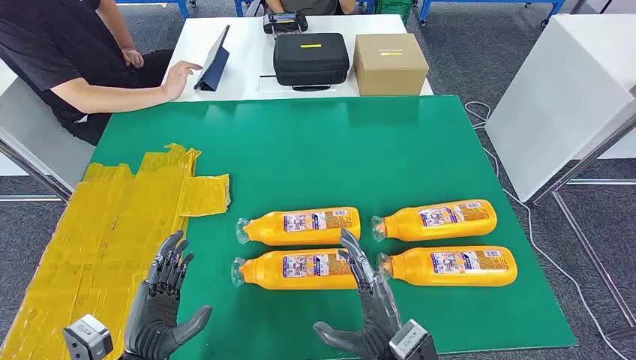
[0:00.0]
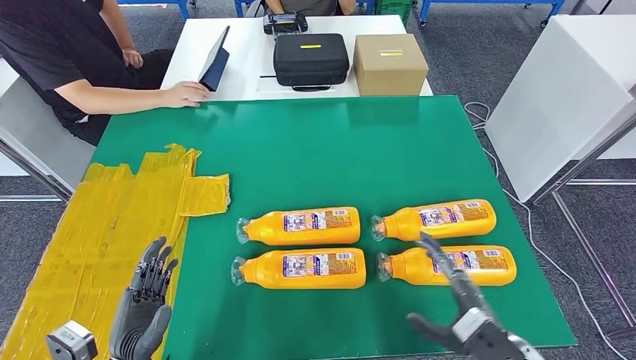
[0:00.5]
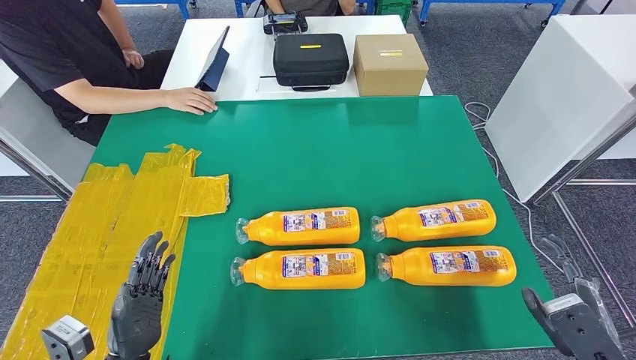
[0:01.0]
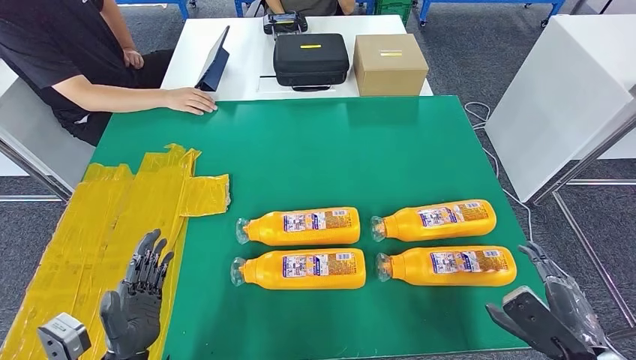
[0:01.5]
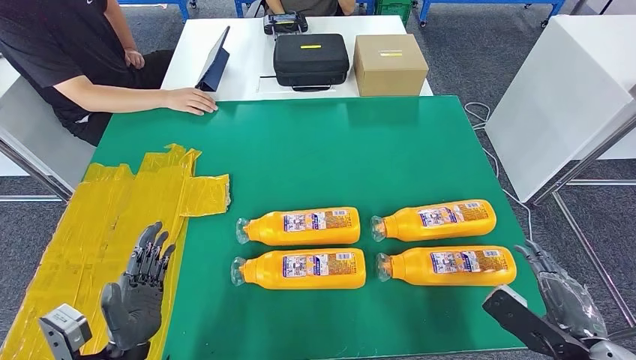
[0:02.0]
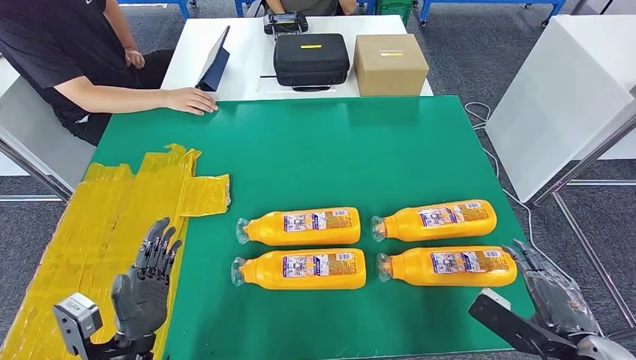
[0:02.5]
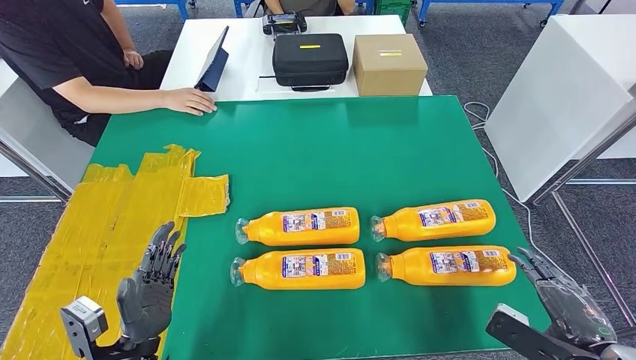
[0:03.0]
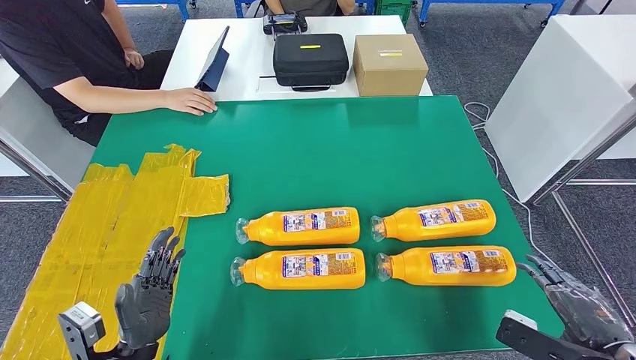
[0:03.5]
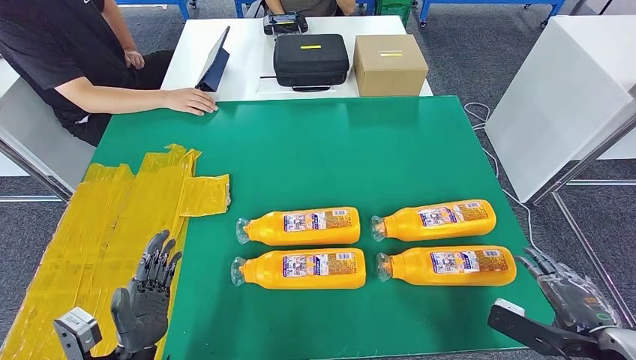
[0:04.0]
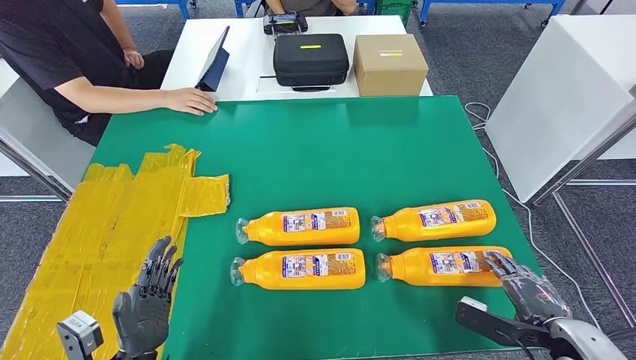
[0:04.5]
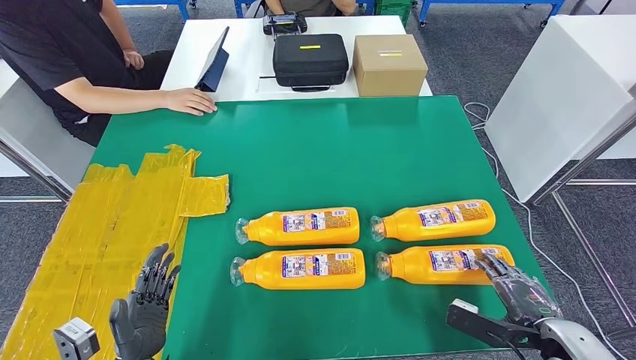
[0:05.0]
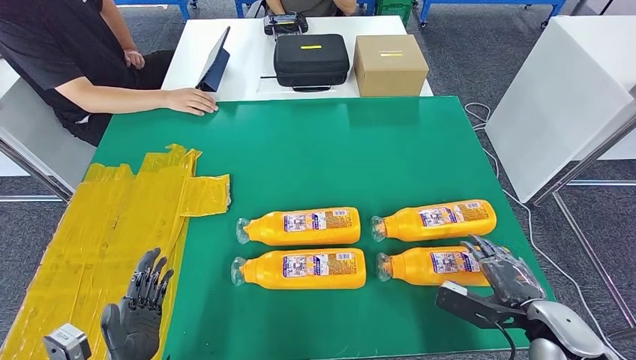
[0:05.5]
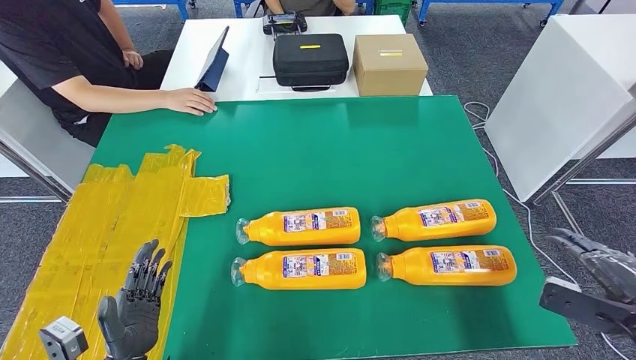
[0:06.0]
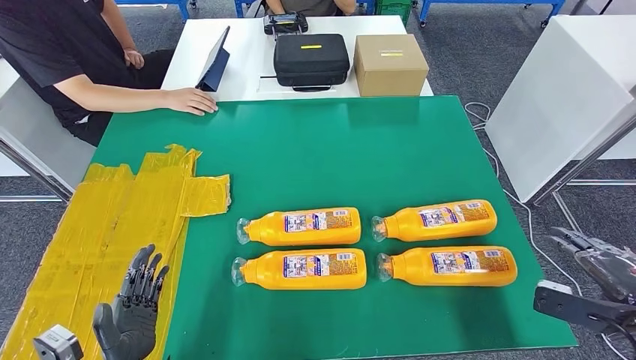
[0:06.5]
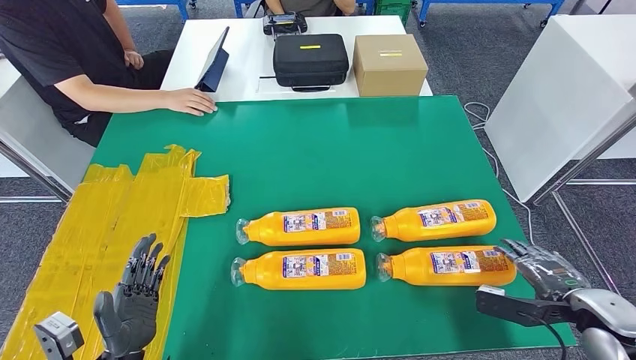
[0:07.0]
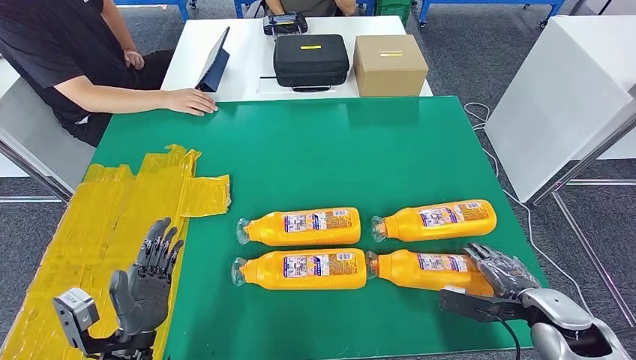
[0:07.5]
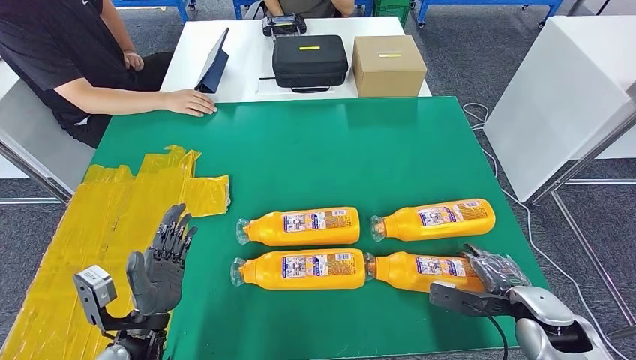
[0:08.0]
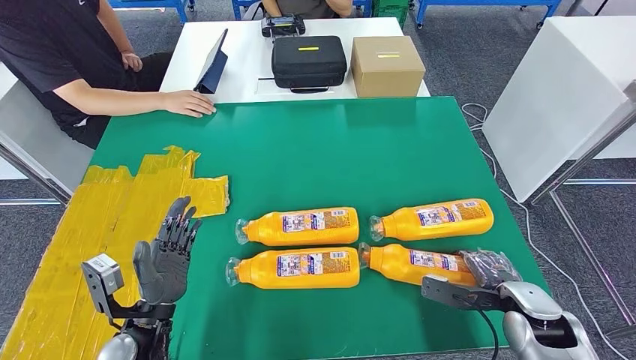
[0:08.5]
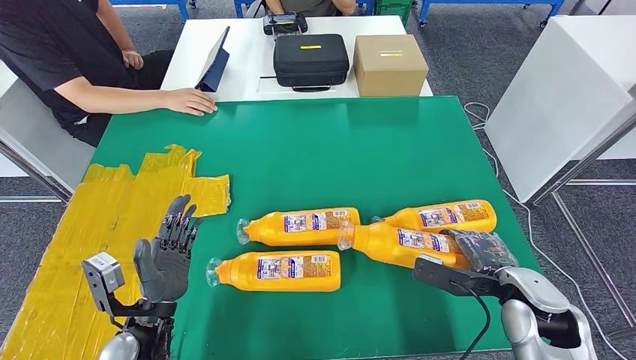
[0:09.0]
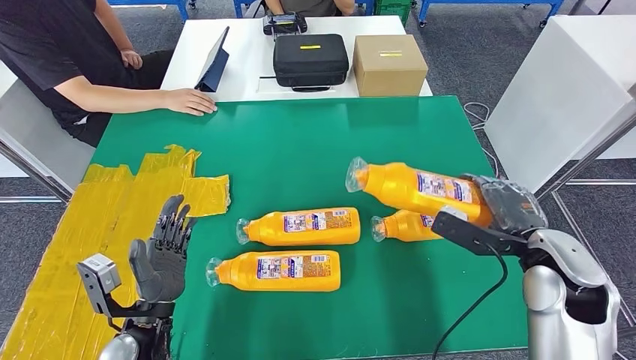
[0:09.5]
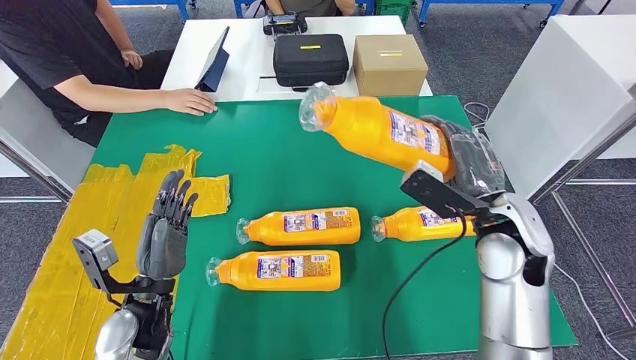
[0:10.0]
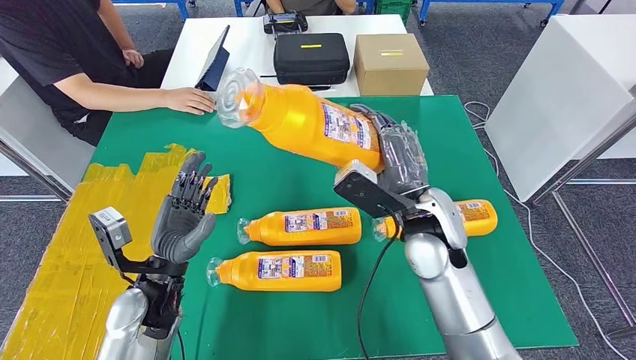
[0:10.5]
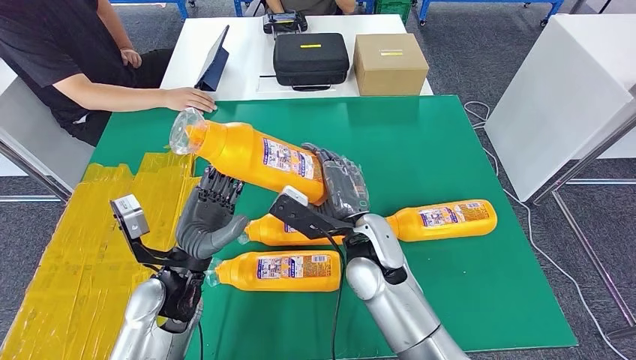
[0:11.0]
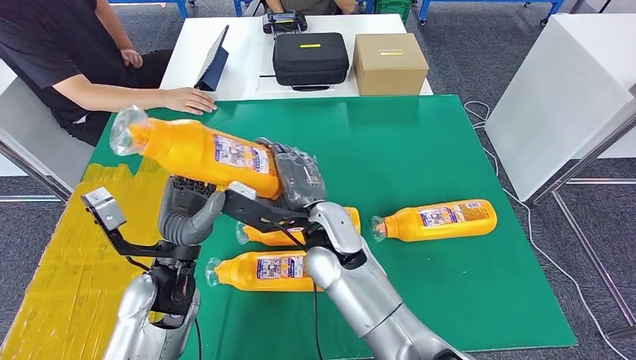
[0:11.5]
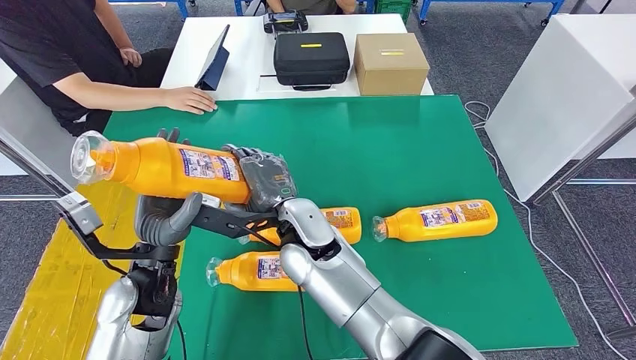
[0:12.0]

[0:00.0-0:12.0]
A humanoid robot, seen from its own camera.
Step, 0:00.0 to 0:11.5: Take the bottle from the table.
0:04.0 to 0:06.0: The right hand goes some 5 cm to the right.
0:06.0 to 0:08.0: The left hand goes approximately 5 cm forward; the right hand shifts about 20 cm downward, to the left and forward.

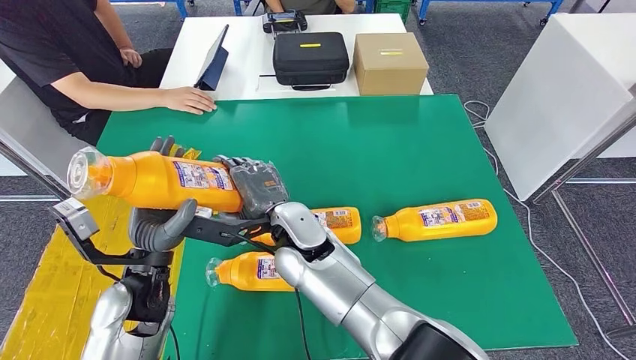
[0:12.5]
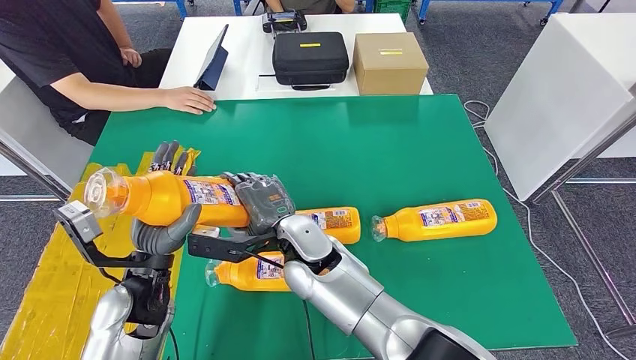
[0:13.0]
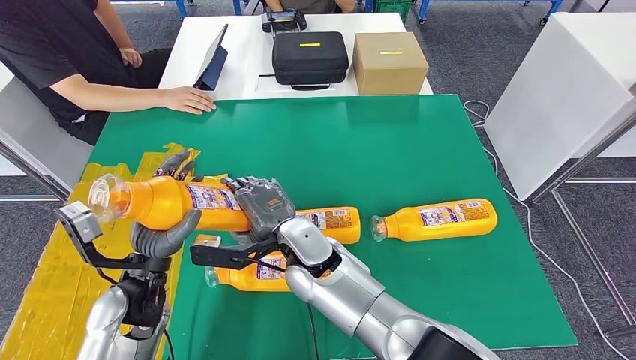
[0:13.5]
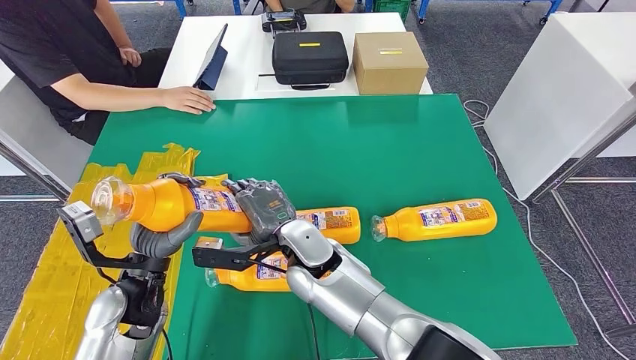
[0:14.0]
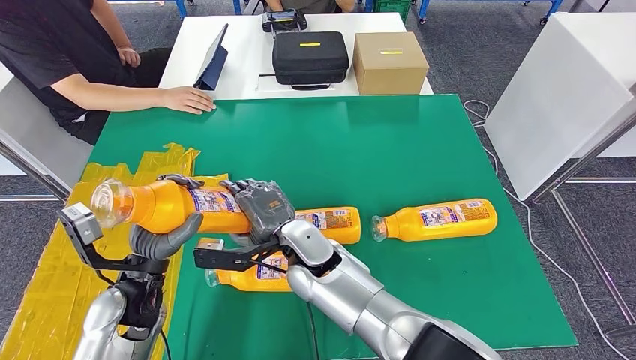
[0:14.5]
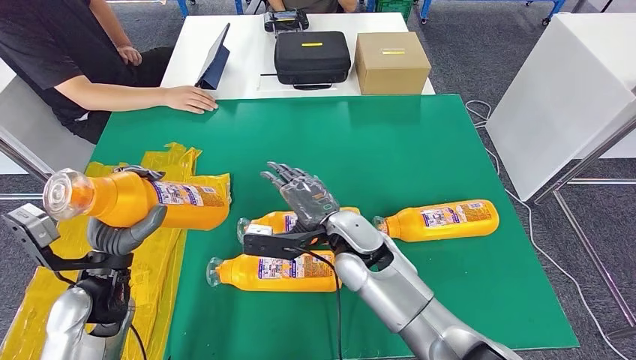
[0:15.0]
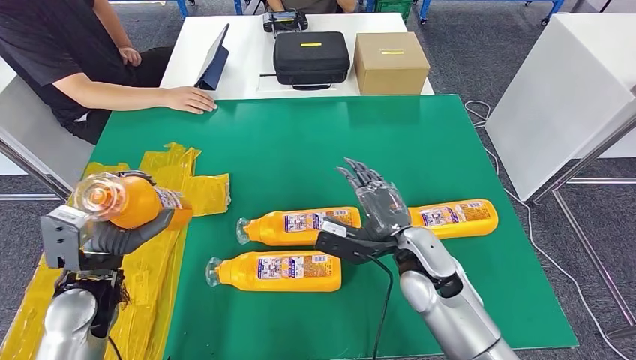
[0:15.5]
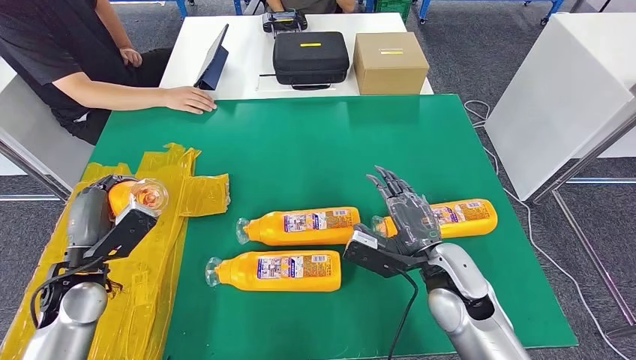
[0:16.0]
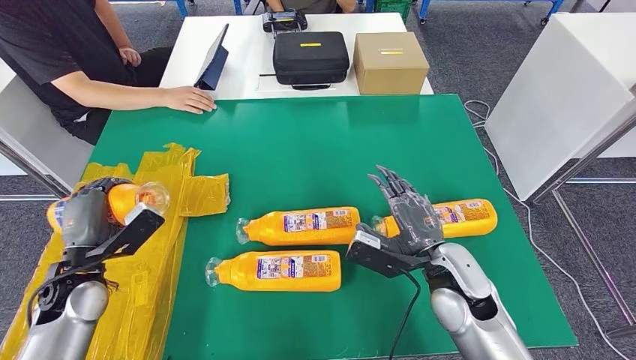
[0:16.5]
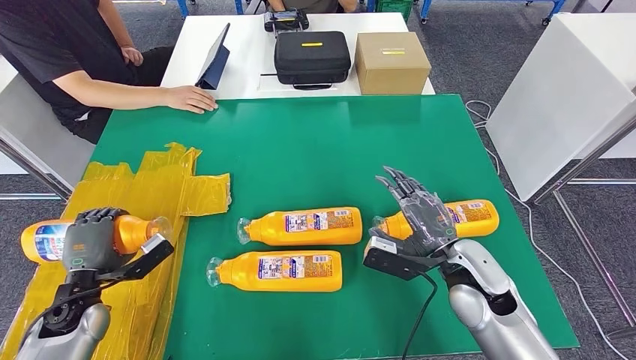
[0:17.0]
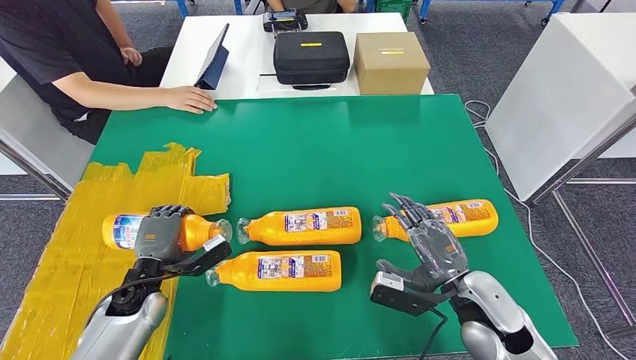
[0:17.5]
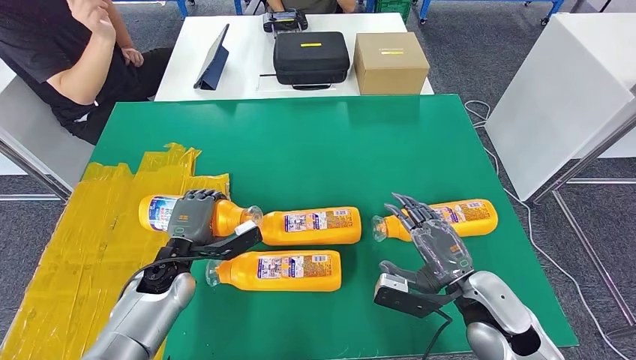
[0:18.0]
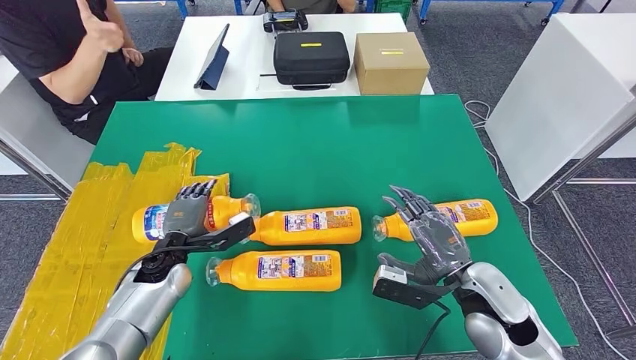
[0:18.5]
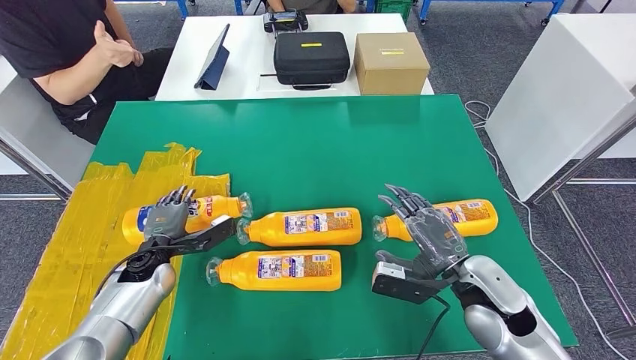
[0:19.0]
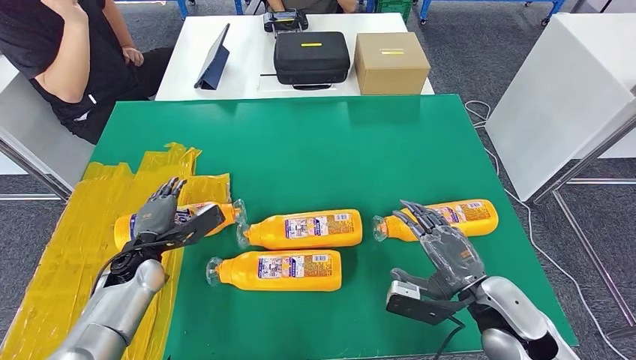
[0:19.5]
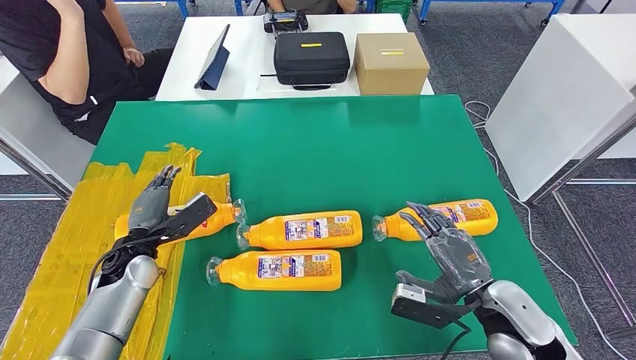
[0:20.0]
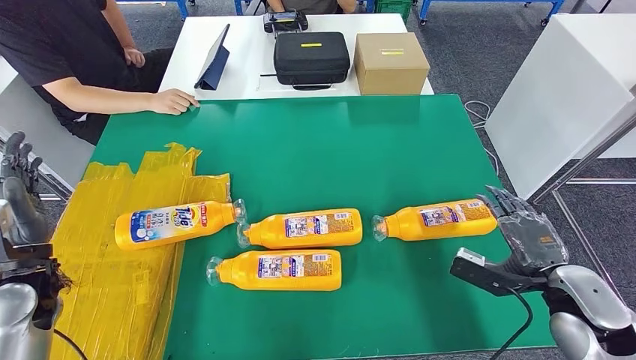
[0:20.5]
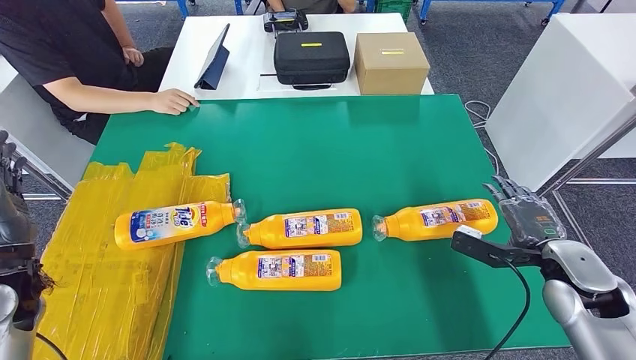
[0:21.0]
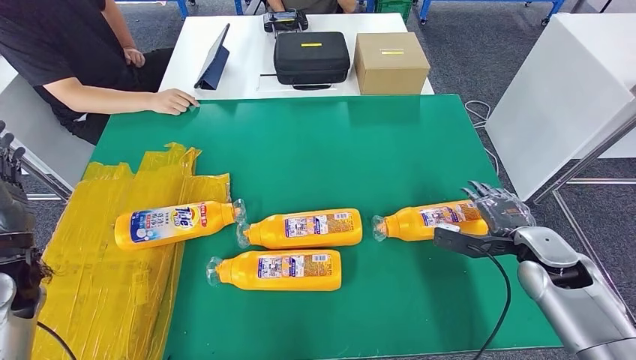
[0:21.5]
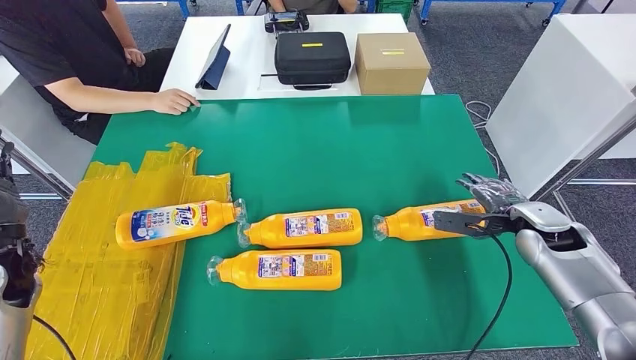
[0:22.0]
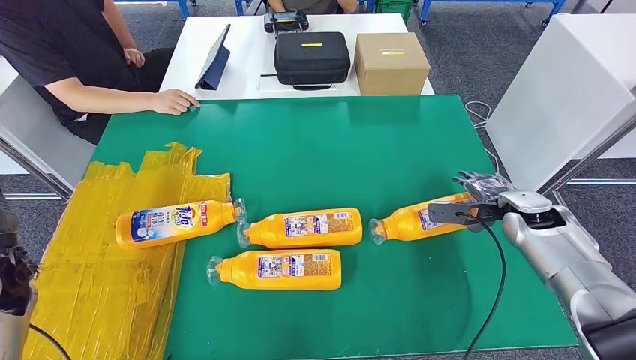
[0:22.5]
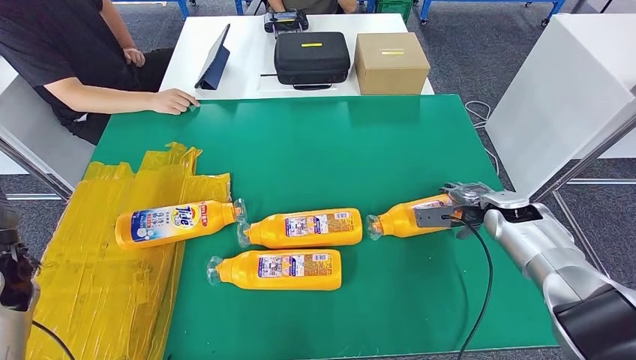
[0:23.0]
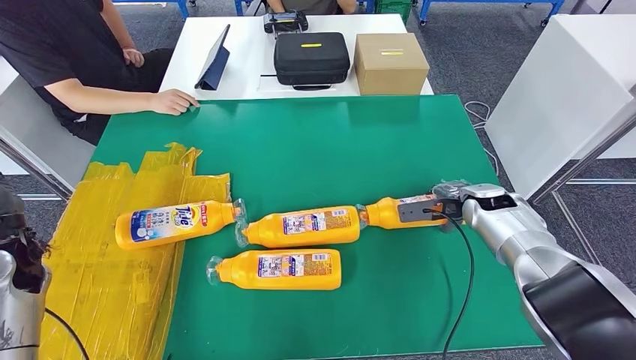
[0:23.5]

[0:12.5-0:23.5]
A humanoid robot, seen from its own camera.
Step, 0:12.5 to 0:17.5: Flip the bottle to face forward.
0:12.5 to 0:14.5: The right hand ends up about 5 cm from where it was.
0:16.0 to 0:18.0: The left hand is displaced to the right and downward by about 15 cm. The right hand is displaced backward by roughly 5 cm.
0:18.0 to 0:20.0: The left hand goes about 5 cm to the left.
0:21.5 to 0:23.5: The right hand travels forward by some 15 cm.
